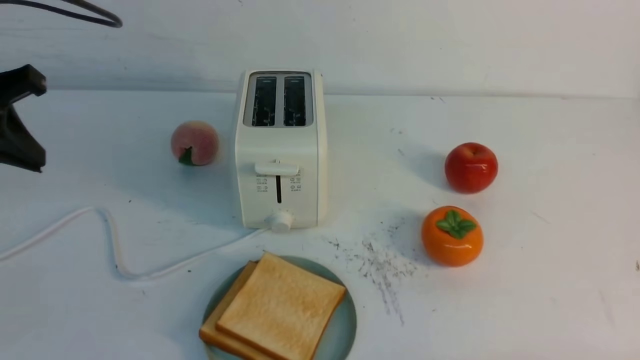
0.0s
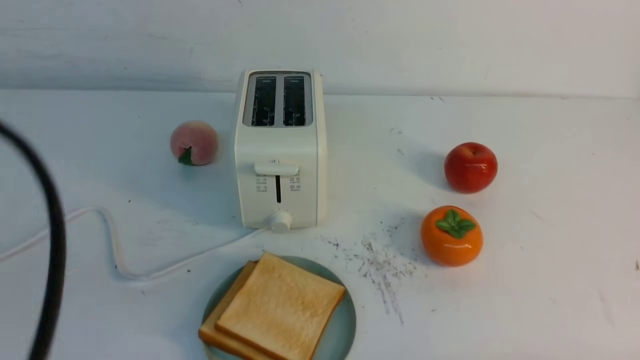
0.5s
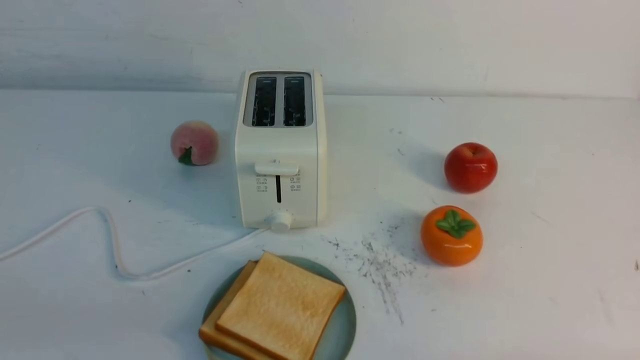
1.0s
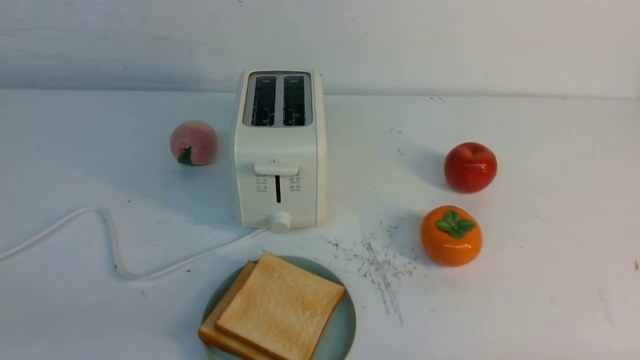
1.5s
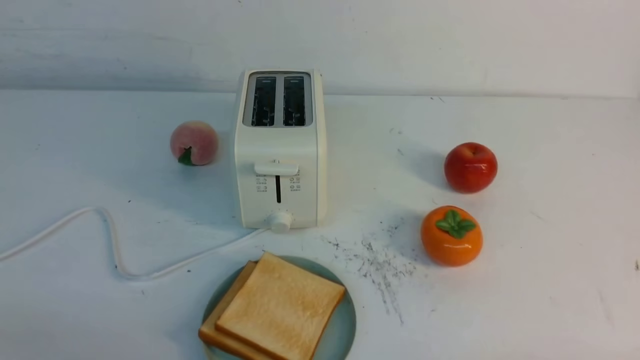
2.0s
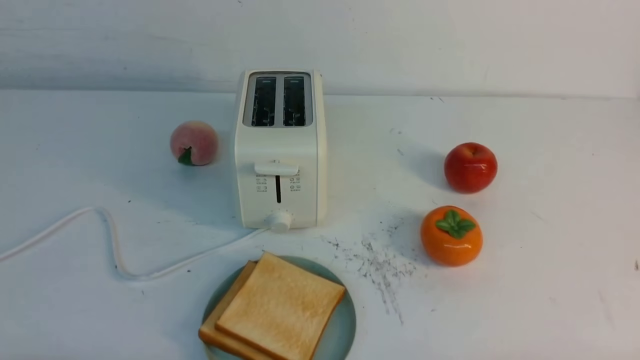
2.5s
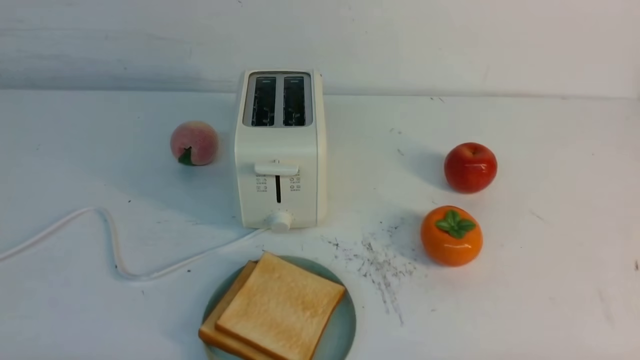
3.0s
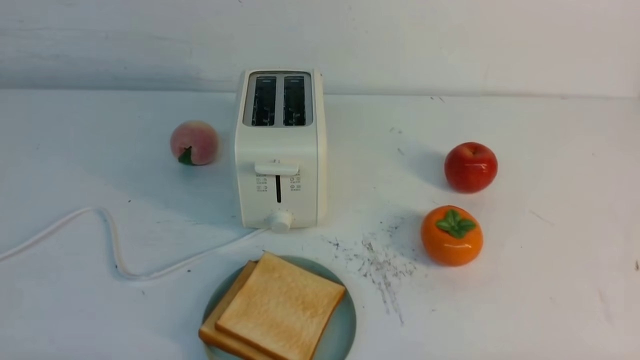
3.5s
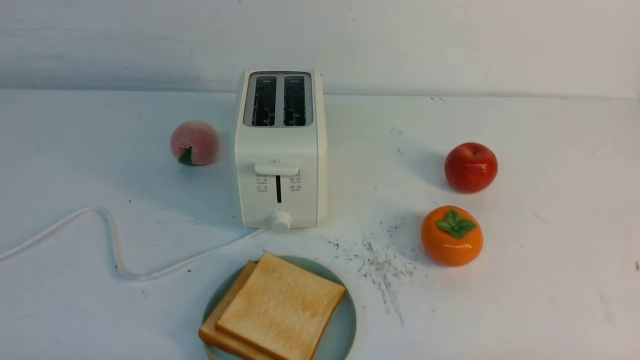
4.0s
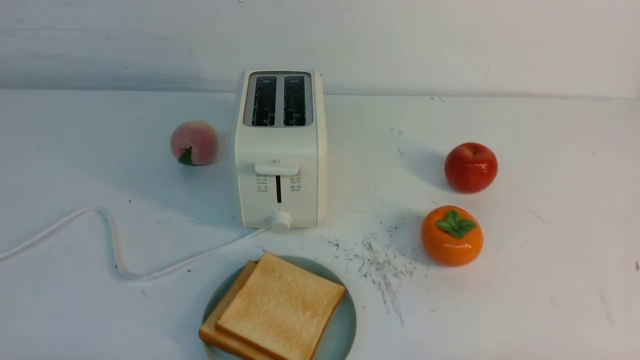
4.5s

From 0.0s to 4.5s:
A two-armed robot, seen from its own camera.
Task of the whole recording: take toasted bread from bread machine on white table place on plate.
From 0.0s to 2.0s: The left gripper shifts about 25 cm backward and downward.

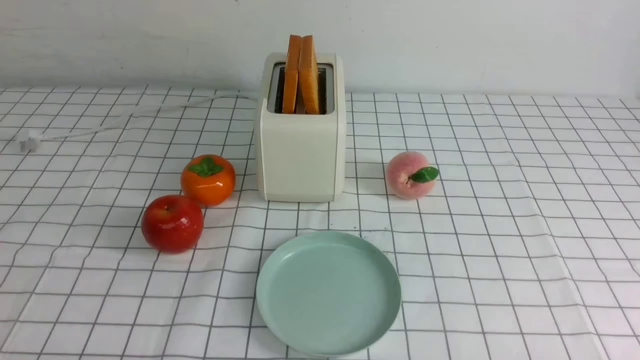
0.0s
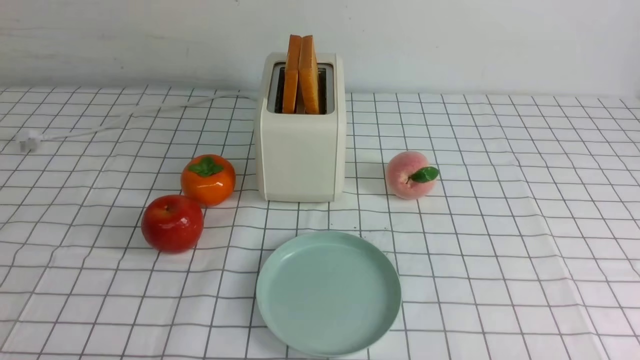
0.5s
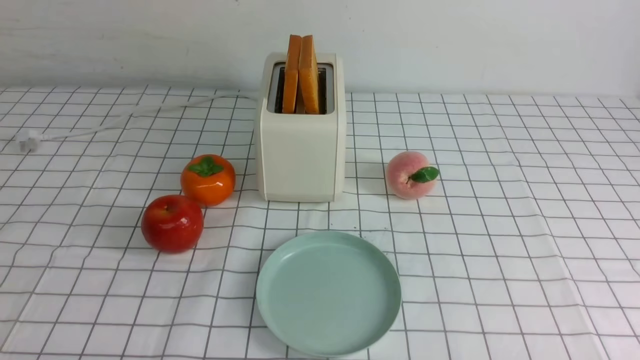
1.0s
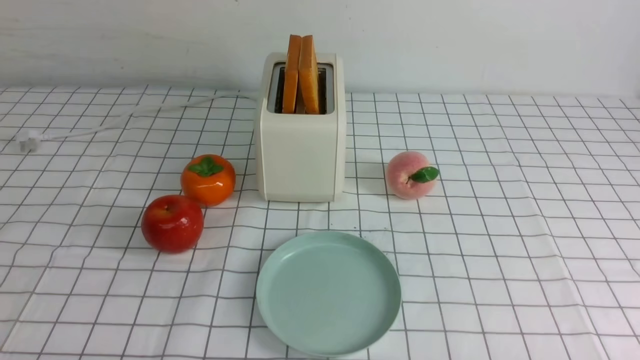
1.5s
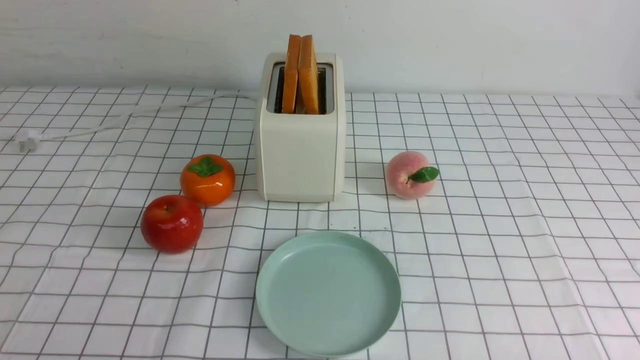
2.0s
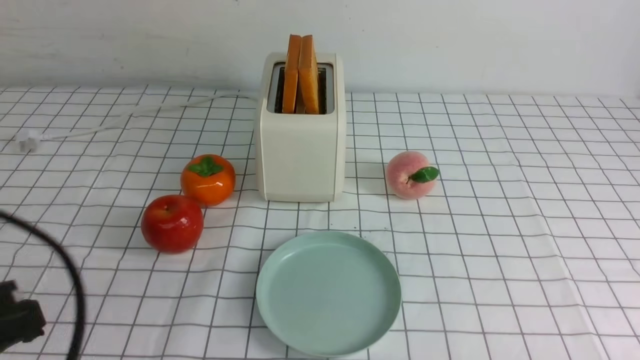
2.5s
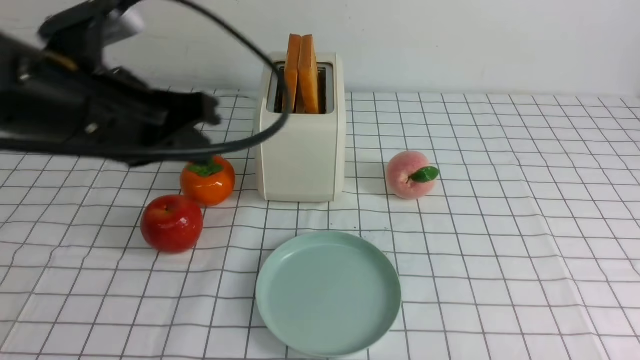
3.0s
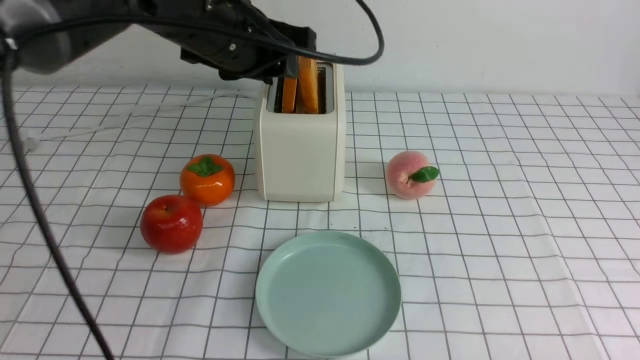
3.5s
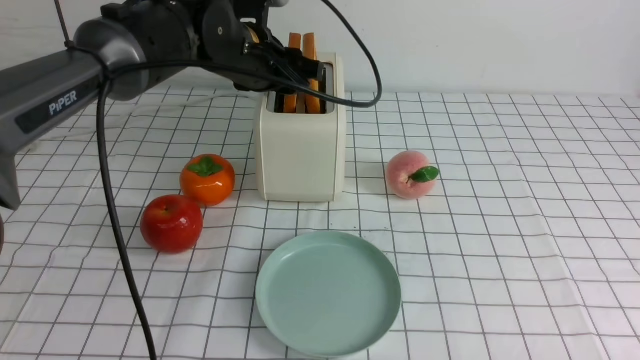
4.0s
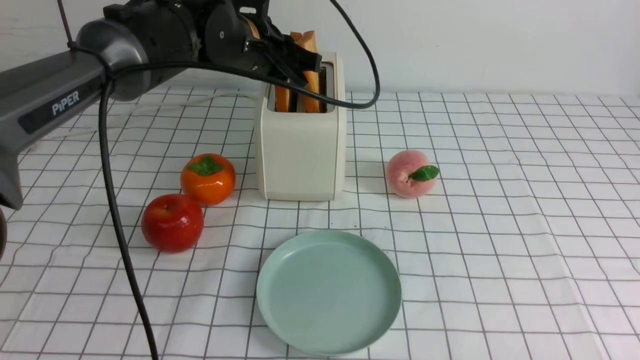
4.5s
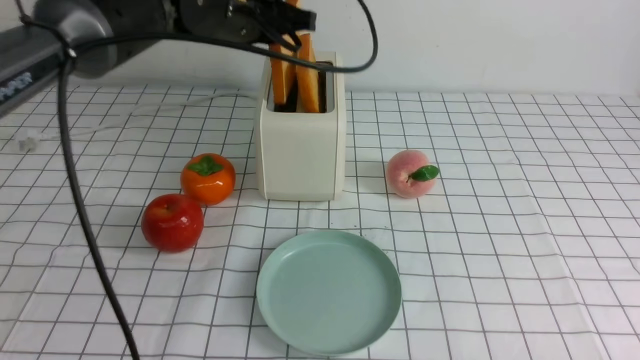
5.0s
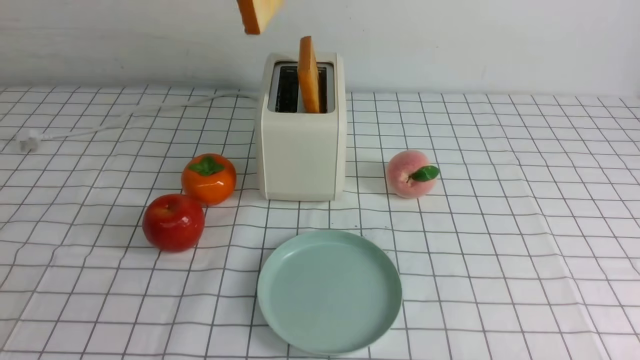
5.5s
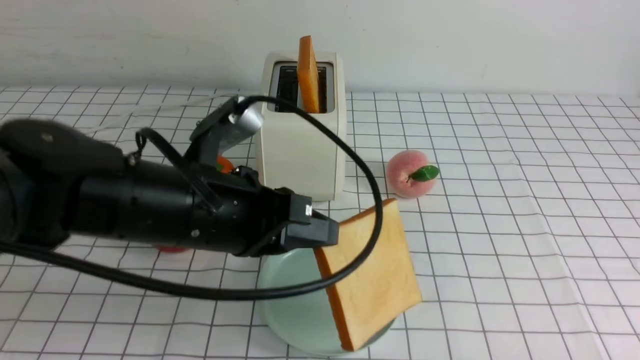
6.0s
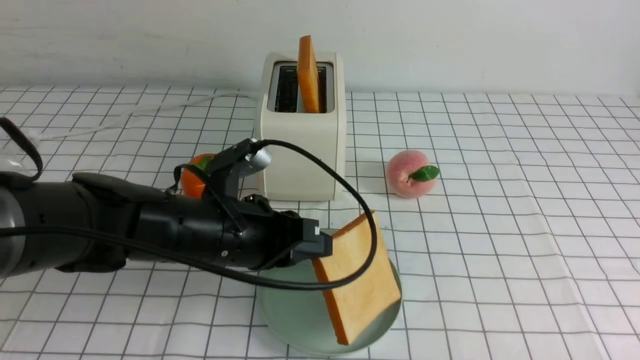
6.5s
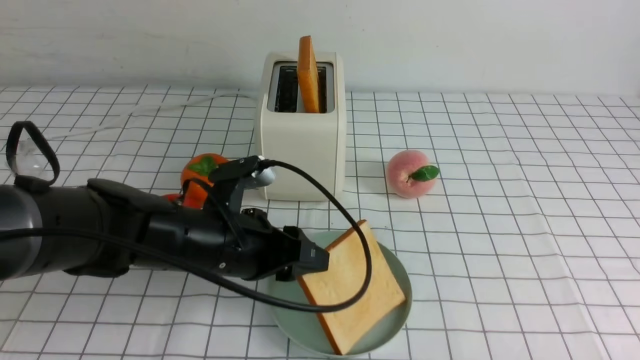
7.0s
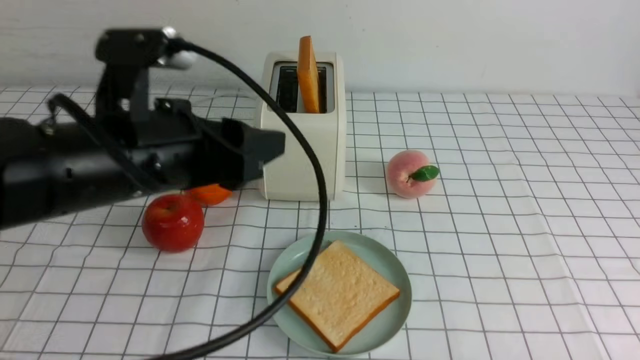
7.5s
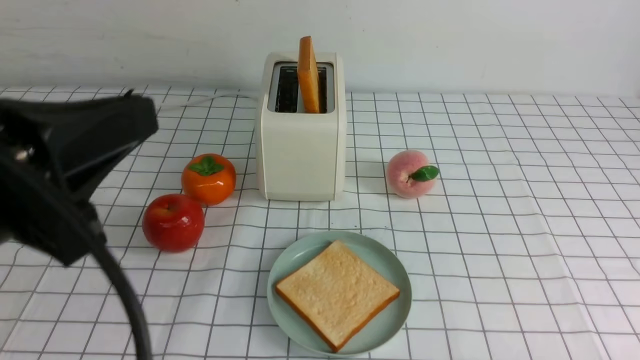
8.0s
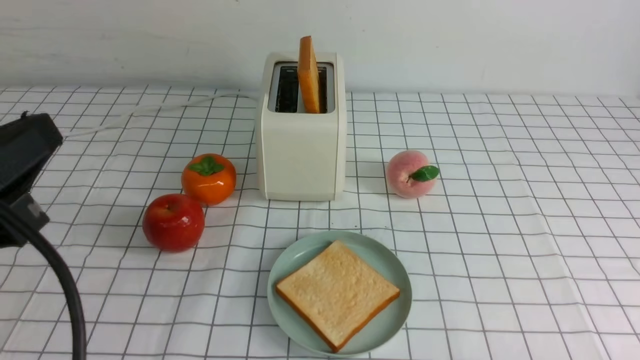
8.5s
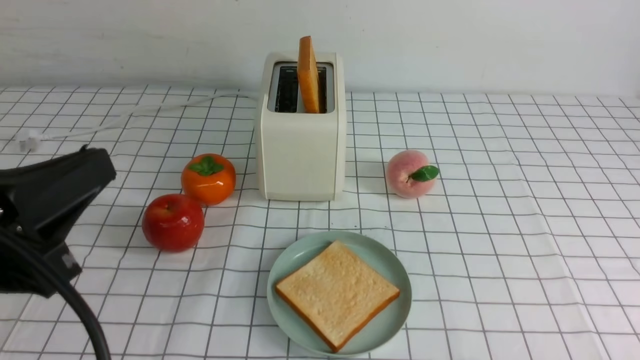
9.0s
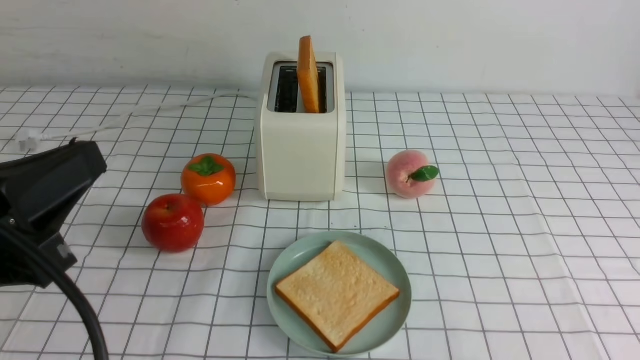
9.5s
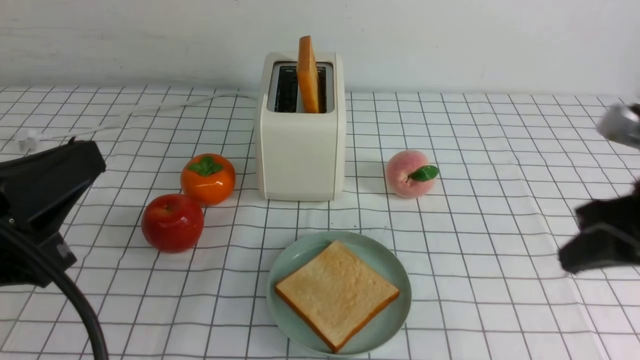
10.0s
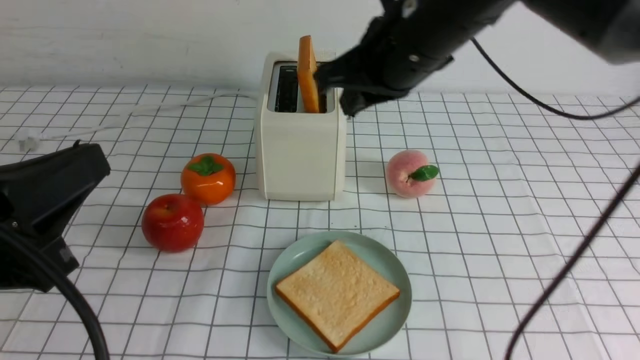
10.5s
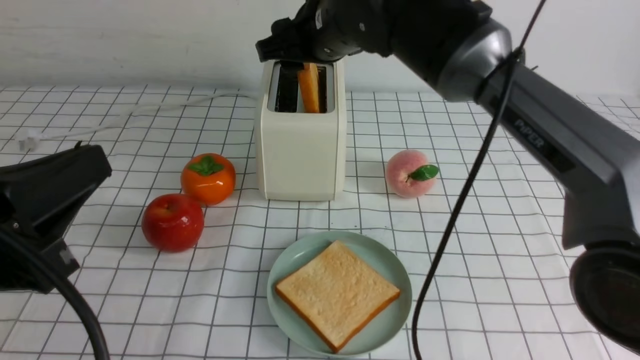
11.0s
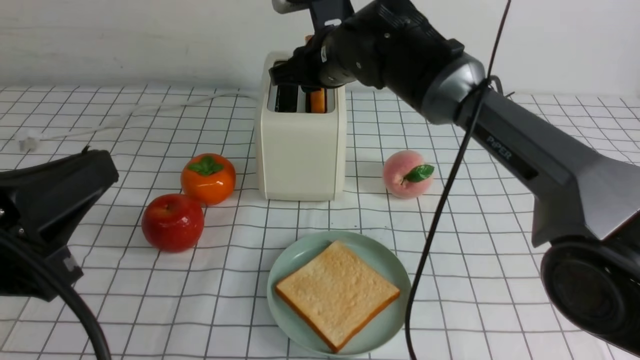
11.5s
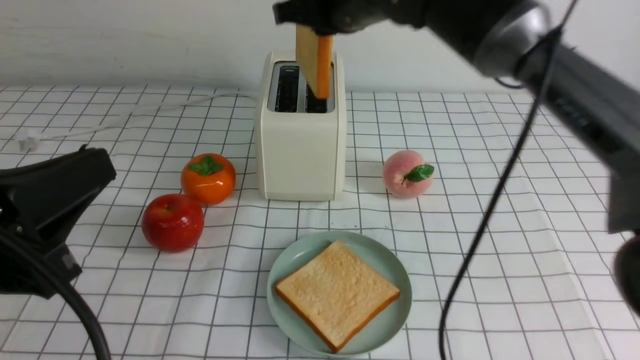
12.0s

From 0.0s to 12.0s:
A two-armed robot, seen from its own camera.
Task of the whole recording: take toasted bread from bread machine on white checkered table place on plate.
Step, from 0.0s to 5.0s: use the left arm to take out a slice of bread.
Step, from 5.5s to 7.0s: use the left arm to put a slice of bread into the empty plate.
Step, from 7.5s to 12.0s: use the right arm to take out a slice of bread.
From 2.0s to 4.0s: The left gripper is displaced forward and to the right by some 40 cm, and closes and opens again.
From 4.0s to 6.0s: The left gripper travels backward by some 20 cm, and closes its fingers.
From 6.0s to 8.0s: The left gripper goes roughly 15 cm backward and to the left, moves about 10 cm downward and comes back, and opens and closes again.
From 8.0s to 10.0s: The left gripper changes place by roughly 5 cm; the right gripper is displaced upward and forward by roughly 20 cm.
From 10.0s to 12.0s: The right gripper heads forward and to the left, covering some 35 cm, and opens, then closes once more.

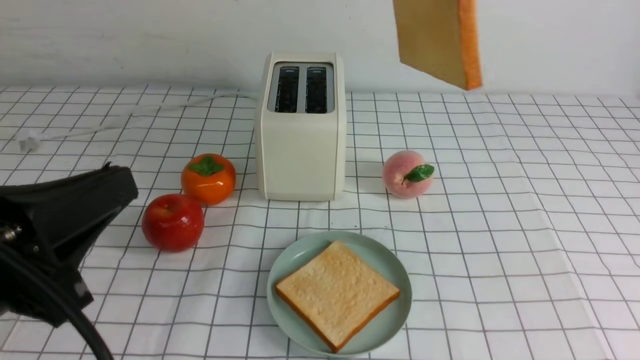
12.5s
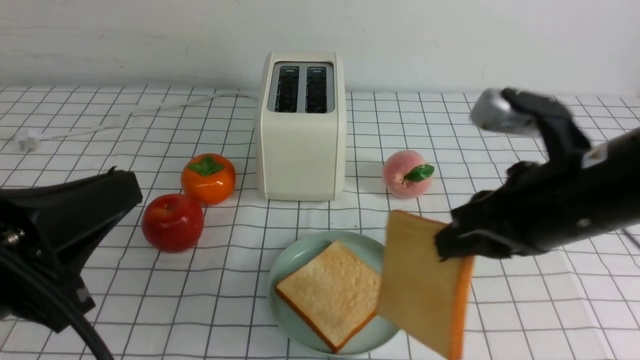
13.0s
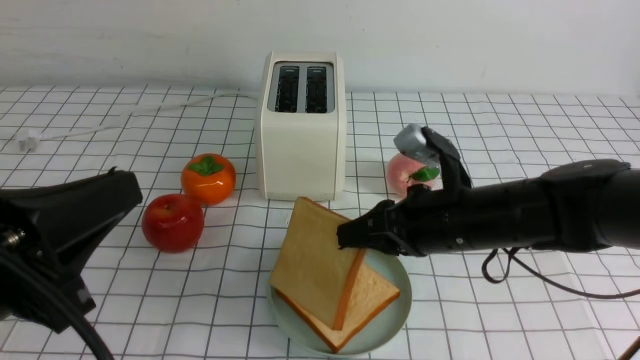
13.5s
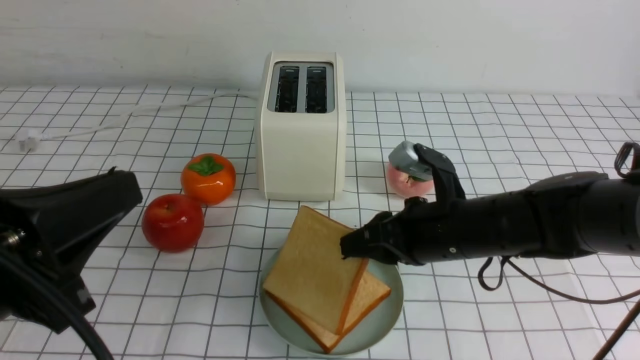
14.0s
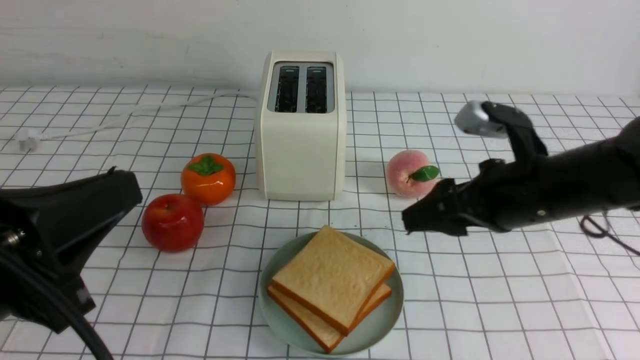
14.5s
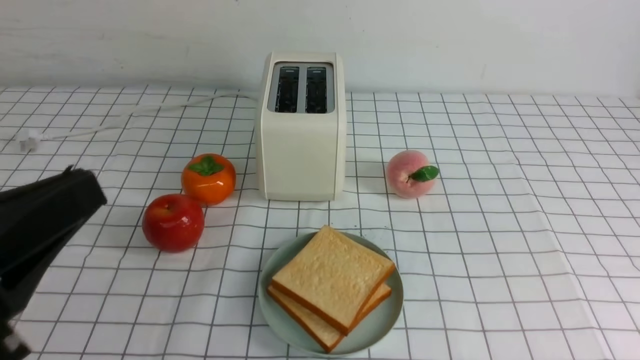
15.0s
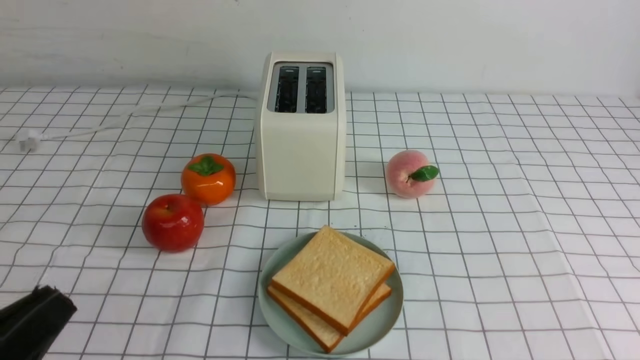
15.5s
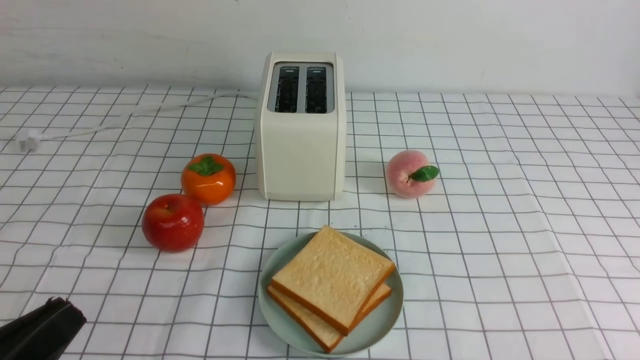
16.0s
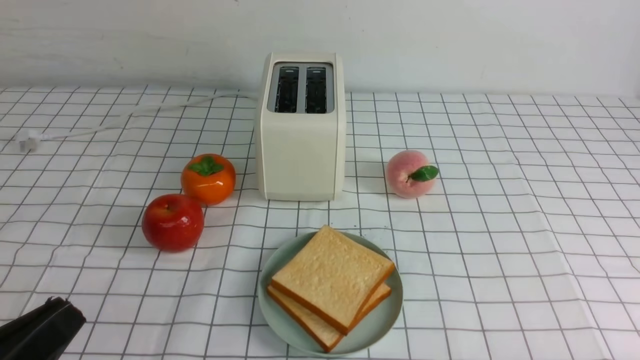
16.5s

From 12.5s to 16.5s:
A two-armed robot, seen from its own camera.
Task of the whole recording: take toasted bread from bread machine on white checkered table place on plate.
Step, from 12.5s to 14.0s: use the right arm to put a slice of bread into the plate.
From 12.5s to 14.5s: The right gripper heads downward, covering roughly 25 cm, and opens.
From 14.5s to 16.5s: The right gripper heads backward and to the right, covering about 30 cm, and closes its fingers. The left gripper is displaced downward and backward by about 10 cm.
